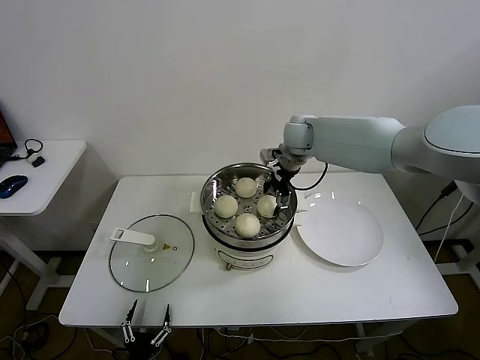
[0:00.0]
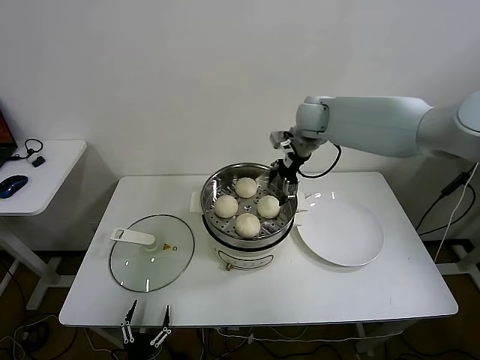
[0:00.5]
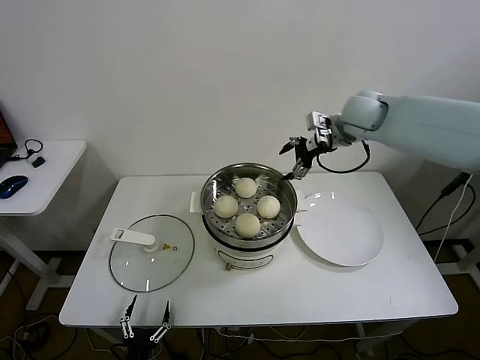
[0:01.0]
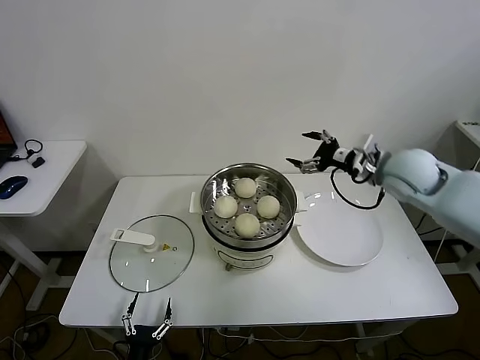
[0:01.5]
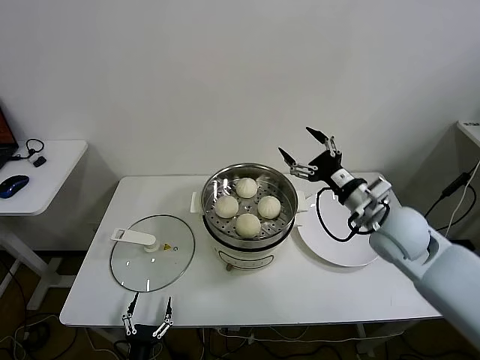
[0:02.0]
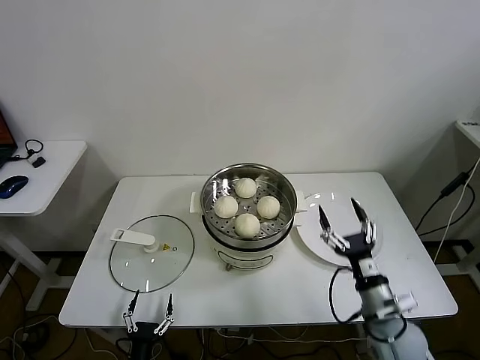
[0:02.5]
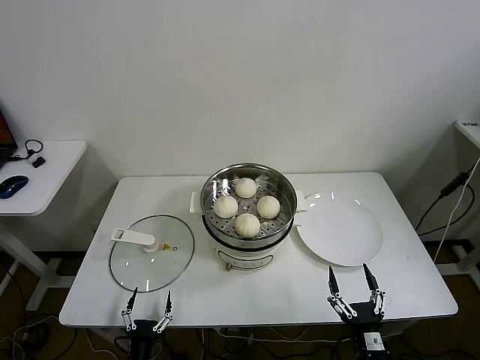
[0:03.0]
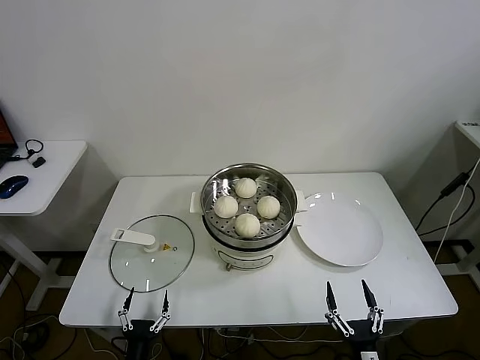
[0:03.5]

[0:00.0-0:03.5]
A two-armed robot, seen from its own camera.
Task of the whole recording: take steamed baozi put them in steamer.
0:00.0 to 0:02.0: The right gripper heads backward and to the right, covering roughly 30 cm.
0:02.0 to 0:03.5: The right gripper goes about 40 cm backward and downward.
